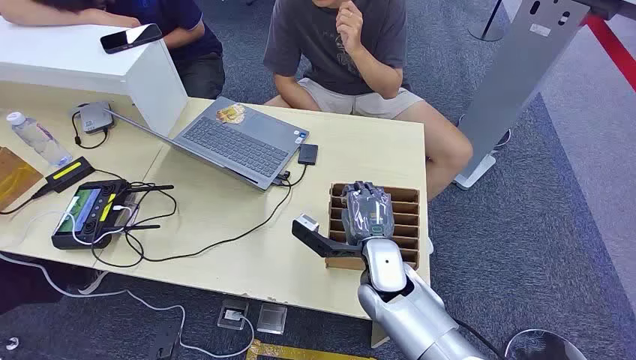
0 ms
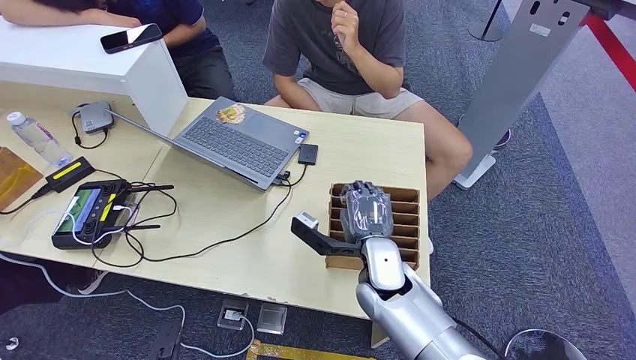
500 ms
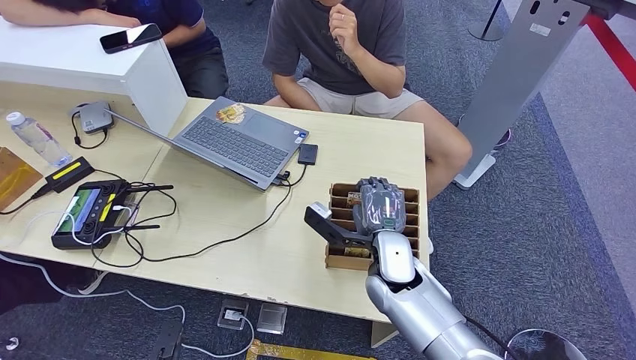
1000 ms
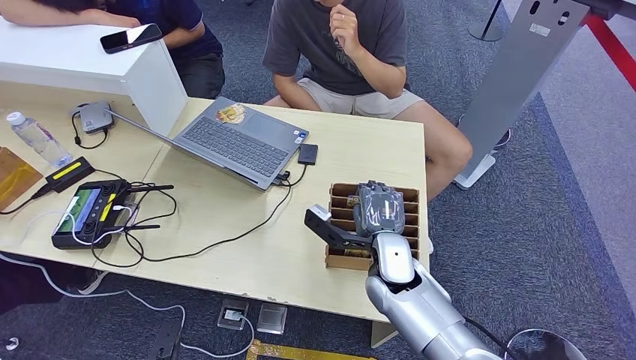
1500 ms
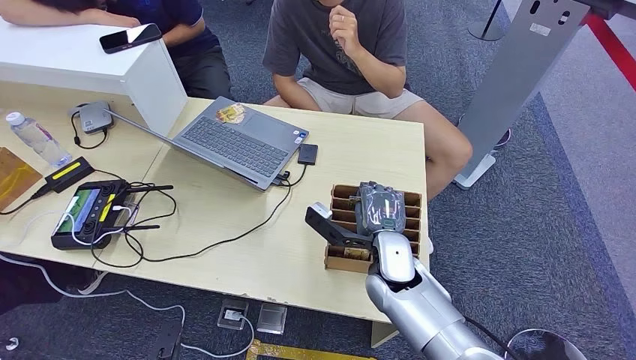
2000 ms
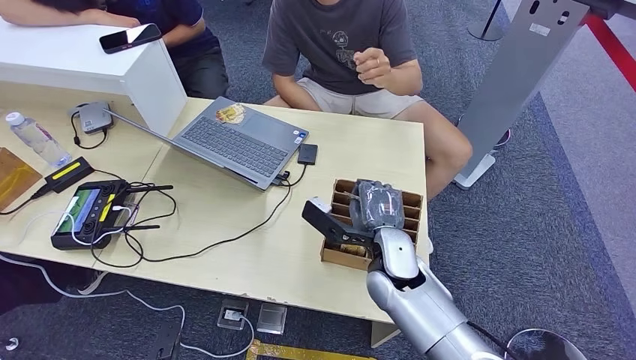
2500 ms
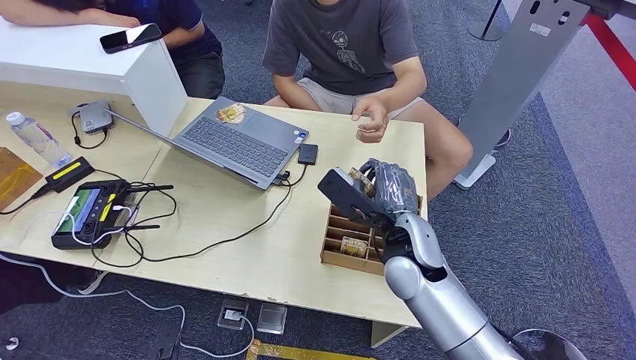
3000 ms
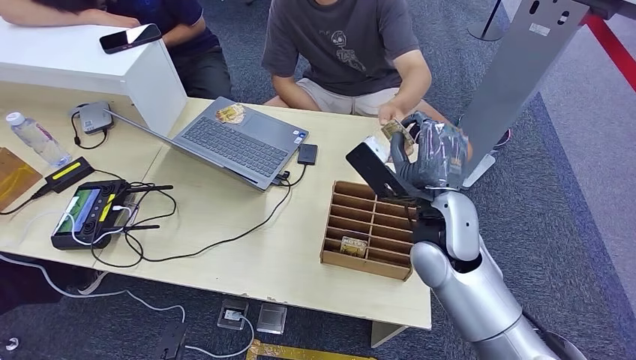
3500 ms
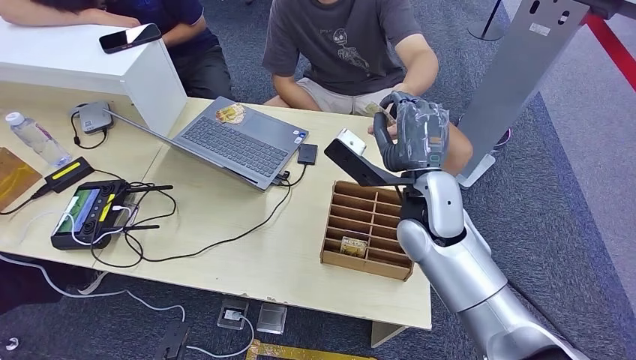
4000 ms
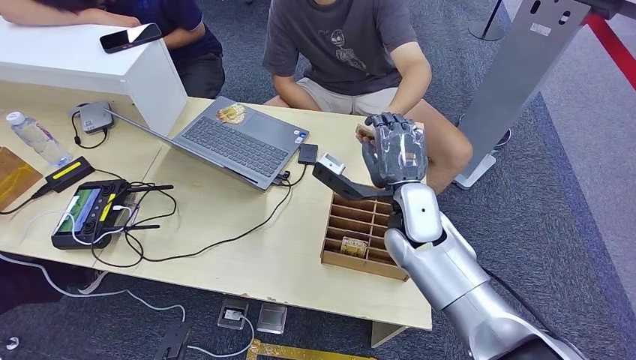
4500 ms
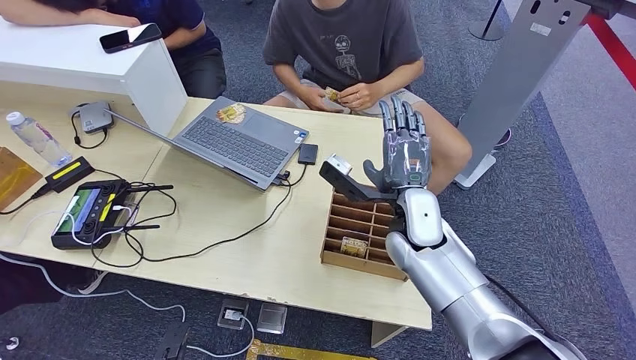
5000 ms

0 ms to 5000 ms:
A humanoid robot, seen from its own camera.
Step, 0 ms to 2000 ms: Pick up the room card from the card holder.
Step, 3000 ms to 5000 ms: Hand the room card to the target.
2500 ms to 5000 ms: The right hand is displaced upward by some 5 cm.
